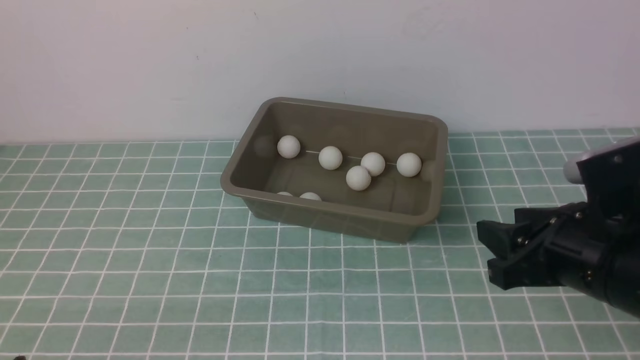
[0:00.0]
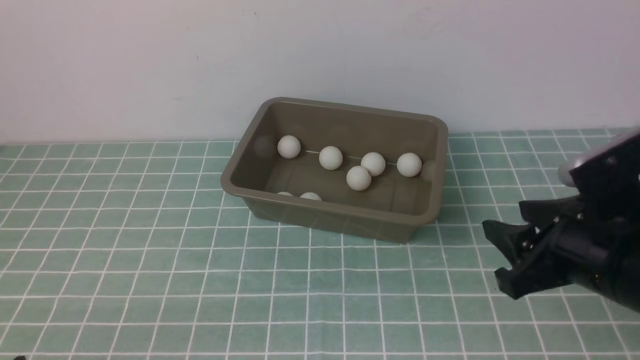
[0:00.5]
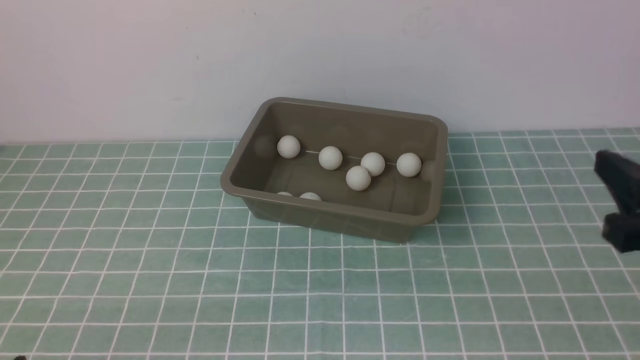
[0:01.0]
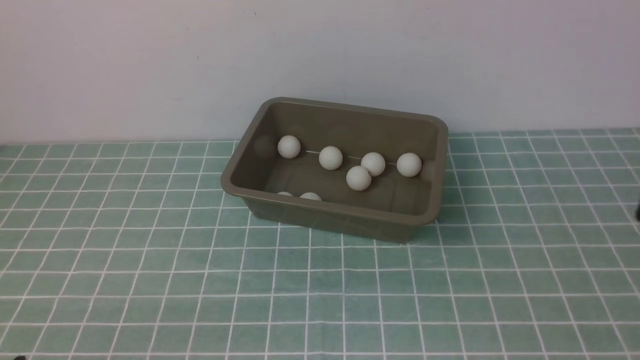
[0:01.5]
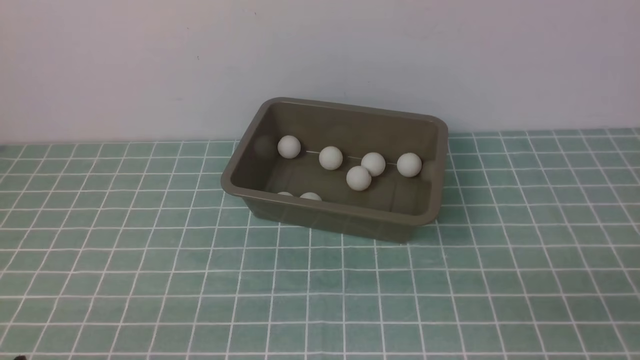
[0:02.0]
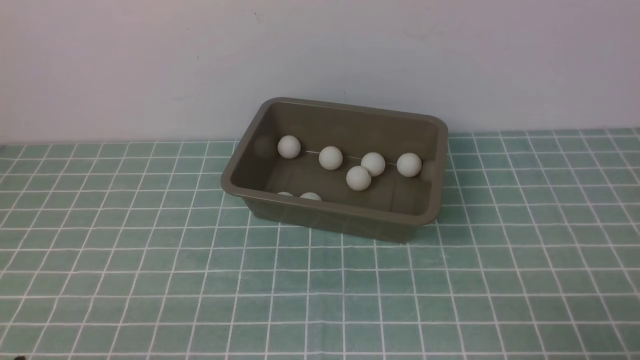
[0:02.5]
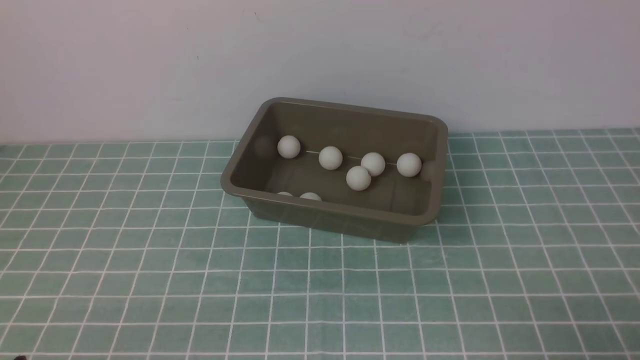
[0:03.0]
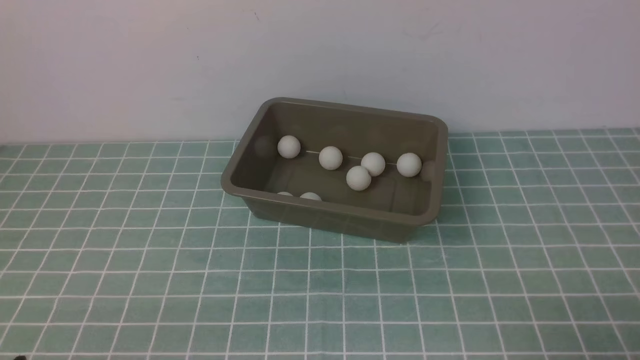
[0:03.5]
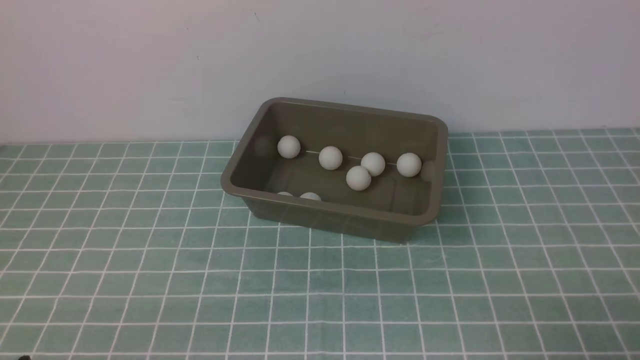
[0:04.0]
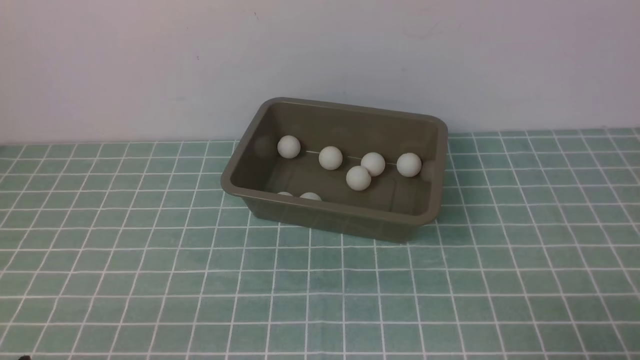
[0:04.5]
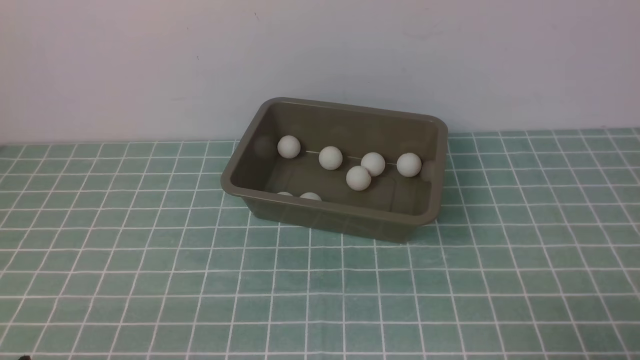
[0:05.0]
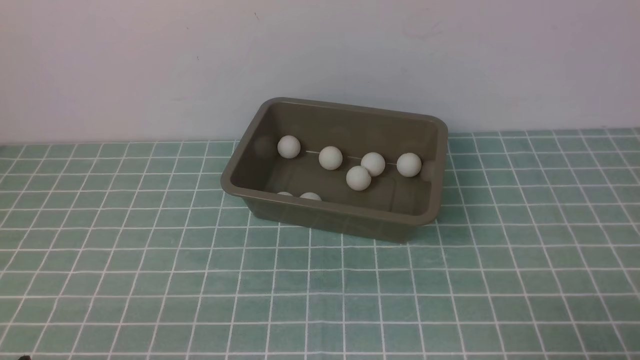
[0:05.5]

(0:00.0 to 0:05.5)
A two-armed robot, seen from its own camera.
0:00.0 - 0:02.0: The right gripper heads backward and to the right, covering roughly 20 cm.
0:03.5 - 0:05.5: Neither gripper changes place.
